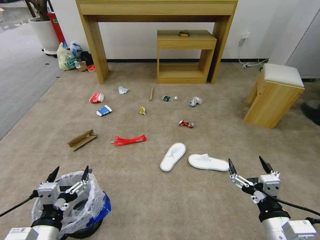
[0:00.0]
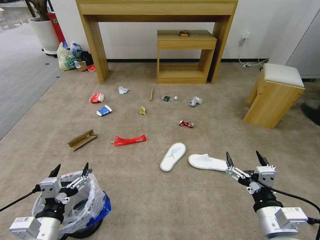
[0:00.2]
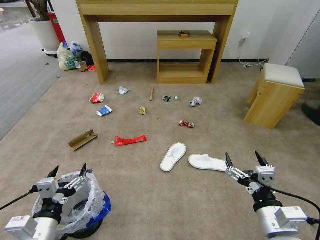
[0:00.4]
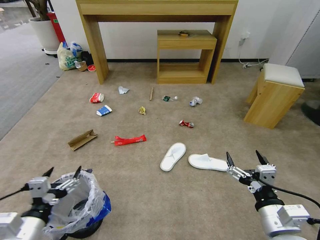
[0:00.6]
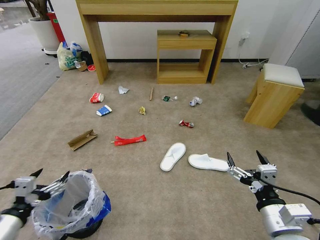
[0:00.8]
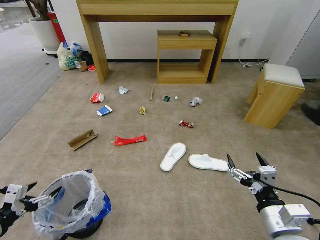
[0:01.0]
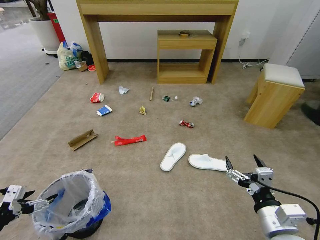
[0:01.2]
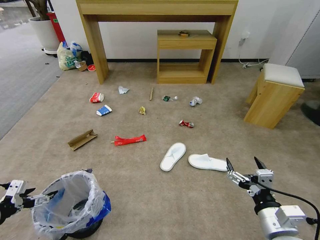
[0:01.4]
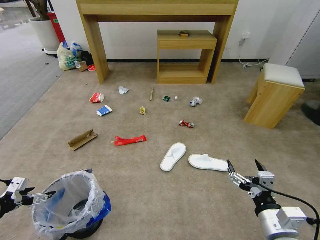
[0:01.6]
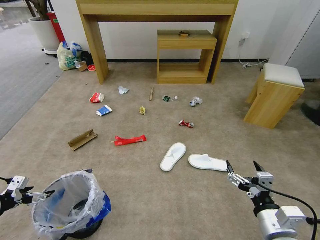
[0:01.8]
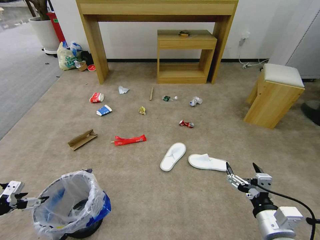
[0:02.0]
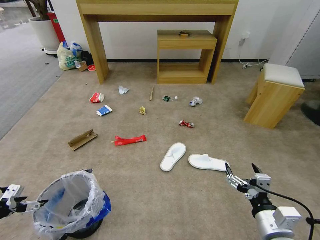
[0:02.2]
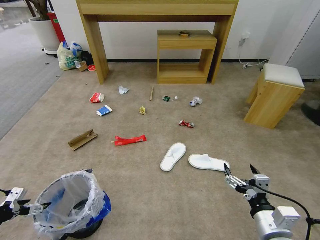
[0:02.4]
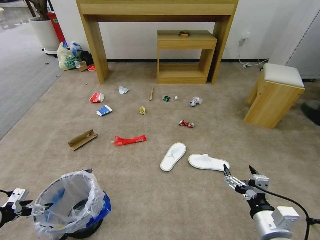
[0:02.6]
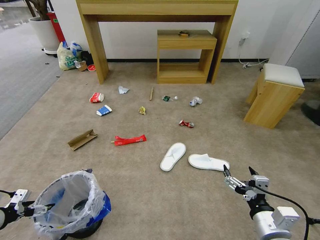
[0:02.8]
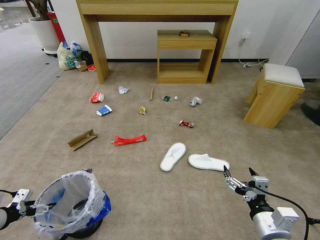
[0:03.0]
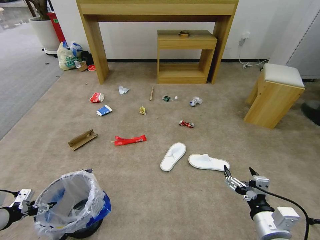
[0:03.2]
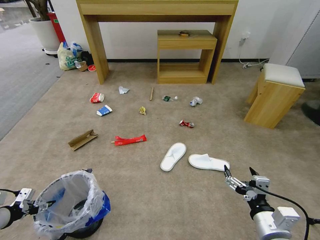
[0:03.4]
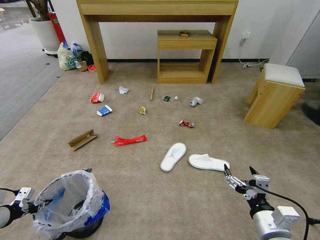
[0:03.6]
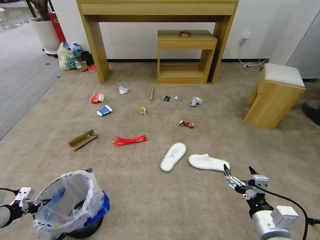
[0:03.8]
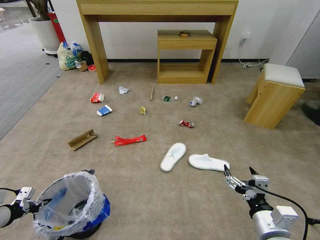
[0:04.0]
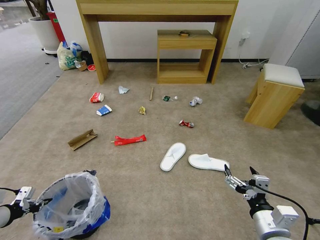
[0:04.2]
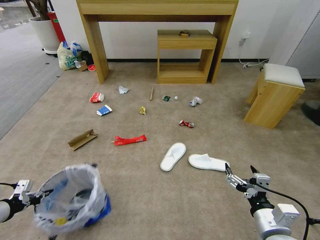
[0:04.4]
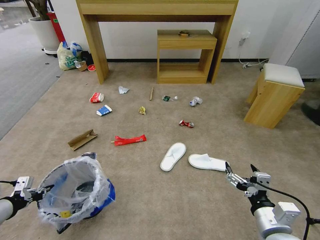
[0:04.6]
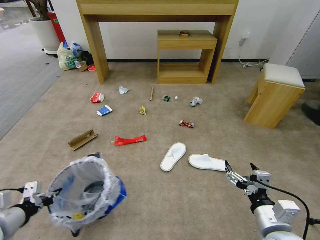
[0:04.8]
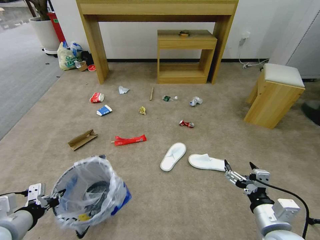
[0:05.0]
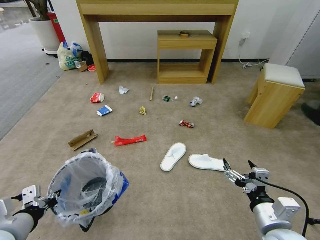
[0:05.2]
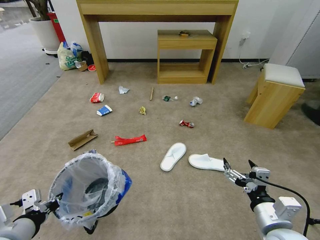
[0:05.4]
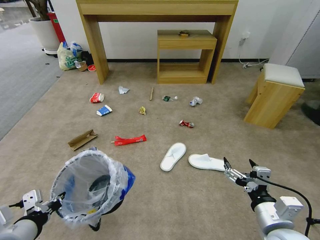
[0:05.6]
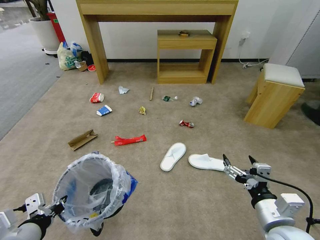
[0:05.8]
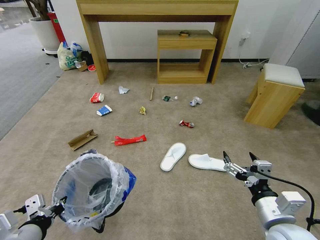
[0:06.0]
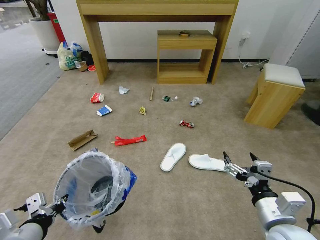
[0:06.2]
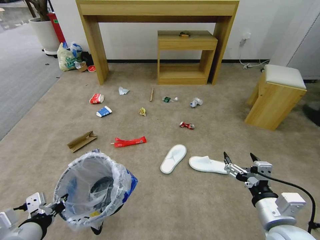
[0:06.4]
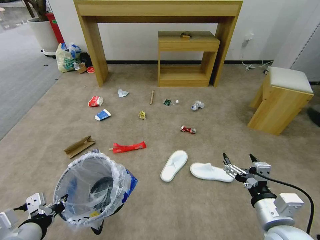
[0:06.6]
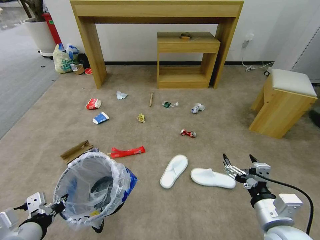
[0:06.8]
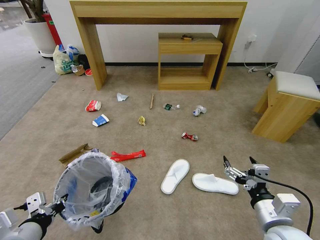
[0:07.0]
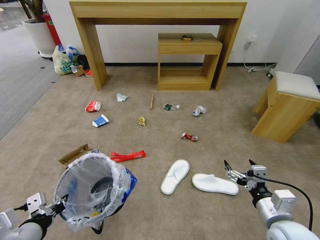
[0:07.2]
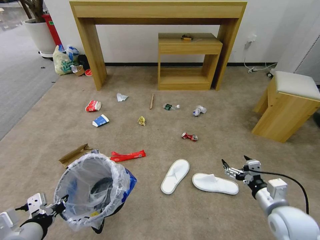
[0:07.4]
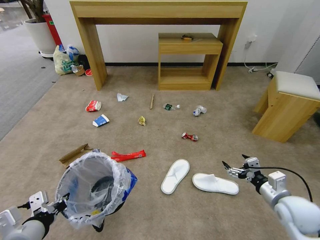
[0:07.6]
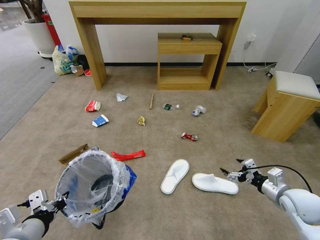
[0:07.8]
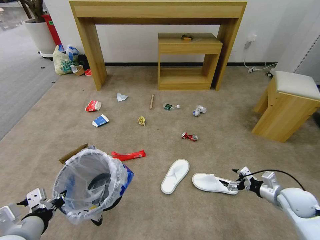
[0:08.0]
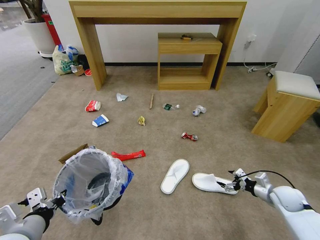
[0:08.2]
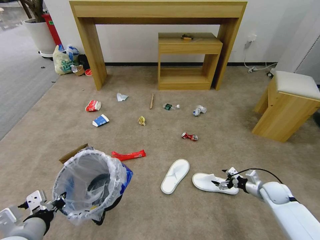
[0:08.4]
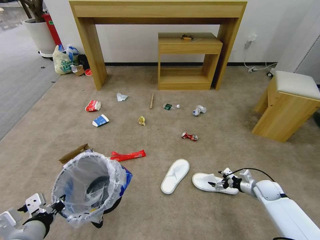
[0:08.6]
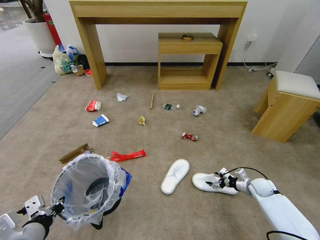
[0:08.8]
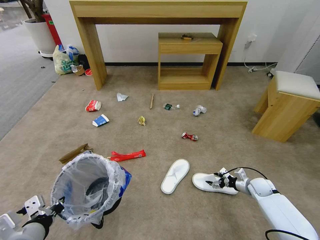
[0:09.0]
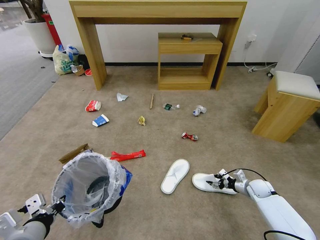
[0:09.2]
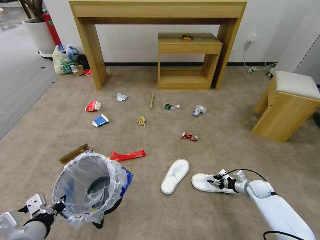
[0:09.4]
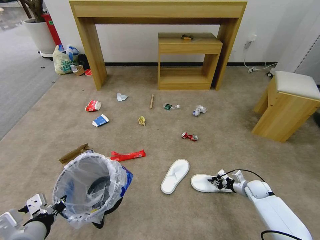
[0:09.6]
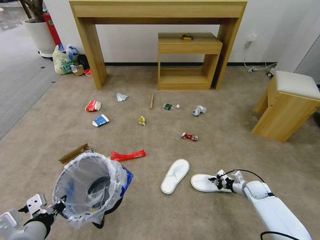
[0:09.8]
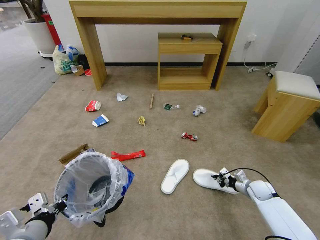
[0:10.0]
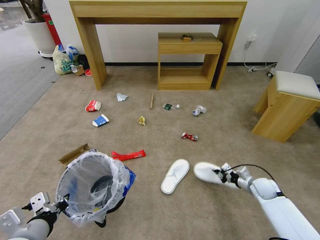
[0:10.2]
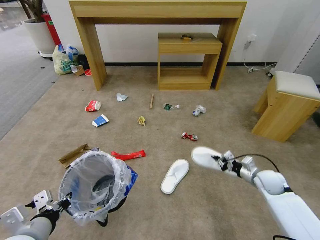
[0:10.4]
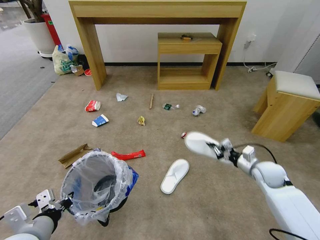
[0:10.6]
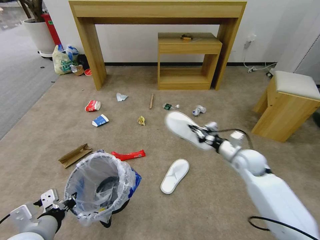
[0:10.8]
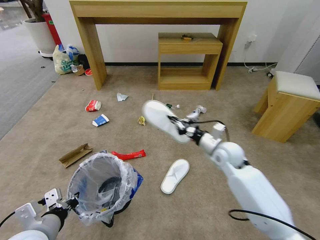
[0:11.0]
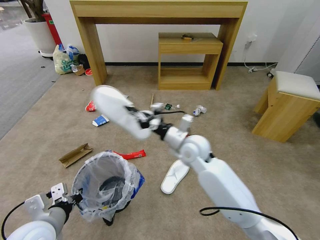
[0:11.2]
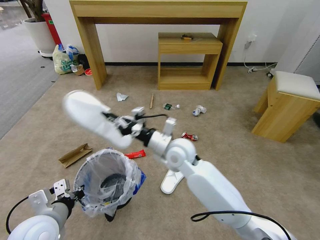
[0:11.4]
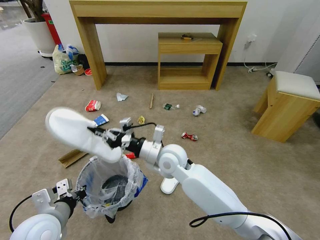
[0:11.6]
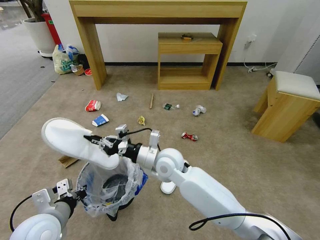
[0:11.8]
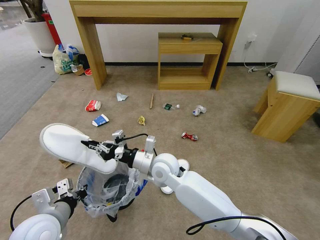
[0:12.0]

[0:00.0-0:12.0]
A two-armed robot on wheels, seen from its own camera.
Task of the whole recording: Pick up the trash bin and place the garbage on the floor into it.
0:01.6 to 0:03.0: The left gripper moves downward, about 5 cm.
0:03.0 to 0:04.4: The left gripper closes.
0:04.4 to 0:06.0: The left gripper heads to the right and backward, covering some 20 cm.
0:06.0 to 0:07.6: The right gripper moves to the right, forward and downward, approximately 15 cm.
0:07.6 to 0:09.0: The right gripper moves downward and forward, some 25 cm.
0:09.0 to 0:10.4: The right gripper is displaced upward by some 10 cm, and closes its fingers.
0:10.4 to 0:12.0: The left gripper shifts by about 5 cm; the right gripper travels to the left by approximately 40 cm.

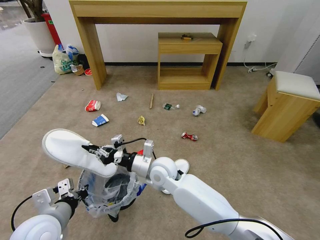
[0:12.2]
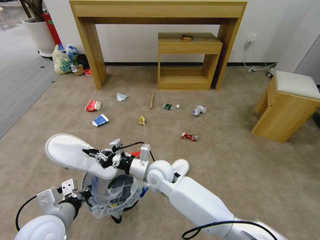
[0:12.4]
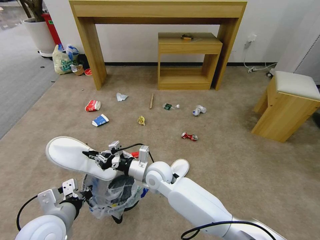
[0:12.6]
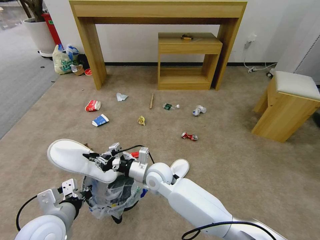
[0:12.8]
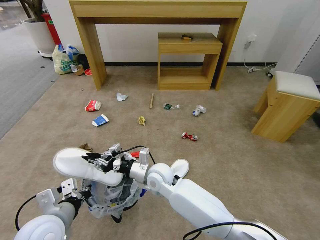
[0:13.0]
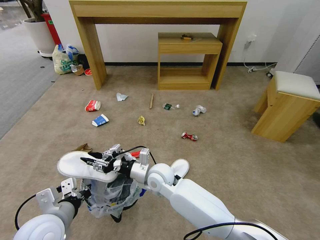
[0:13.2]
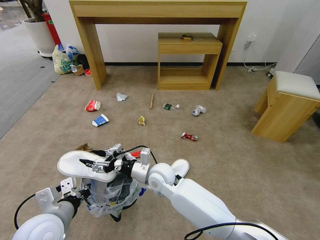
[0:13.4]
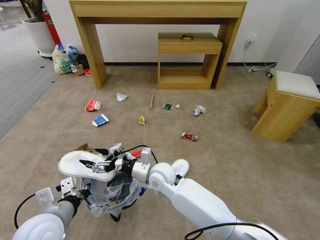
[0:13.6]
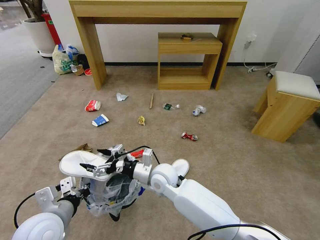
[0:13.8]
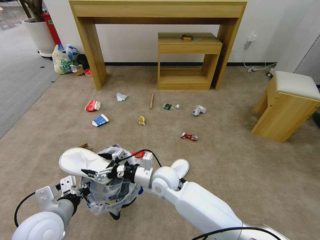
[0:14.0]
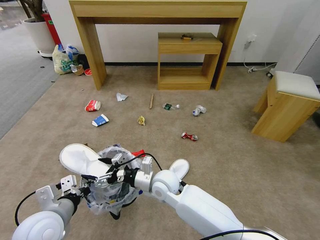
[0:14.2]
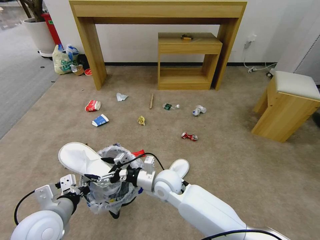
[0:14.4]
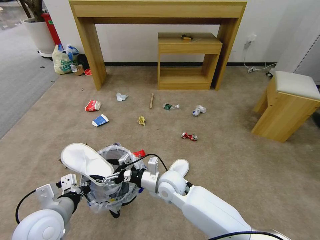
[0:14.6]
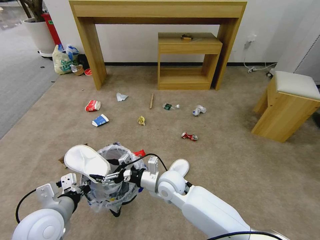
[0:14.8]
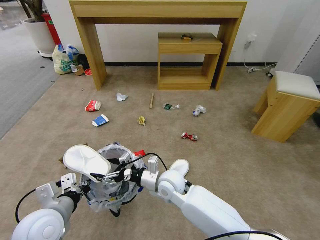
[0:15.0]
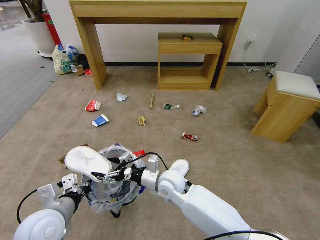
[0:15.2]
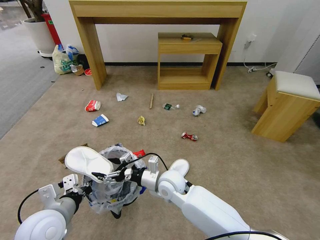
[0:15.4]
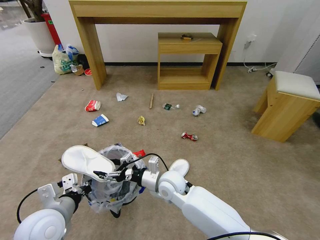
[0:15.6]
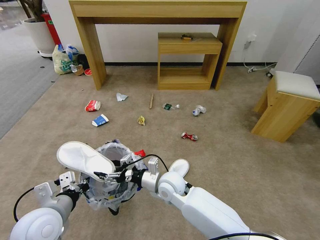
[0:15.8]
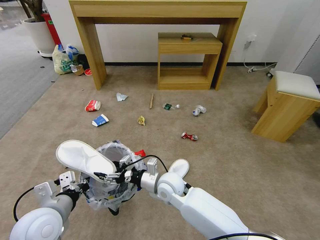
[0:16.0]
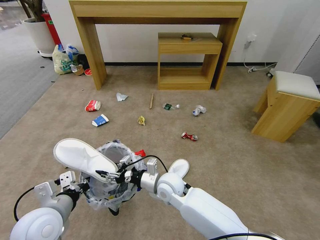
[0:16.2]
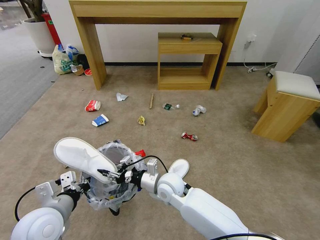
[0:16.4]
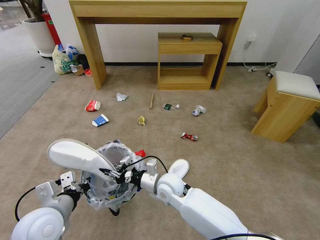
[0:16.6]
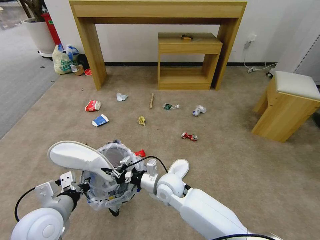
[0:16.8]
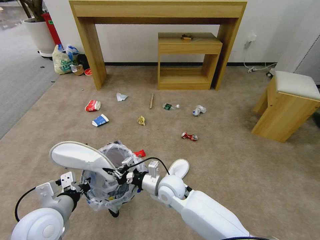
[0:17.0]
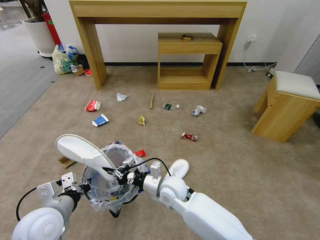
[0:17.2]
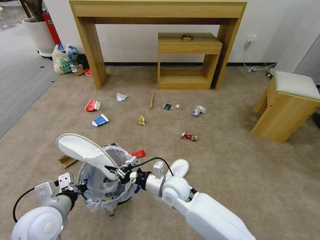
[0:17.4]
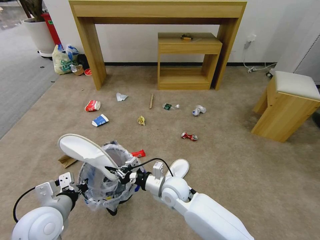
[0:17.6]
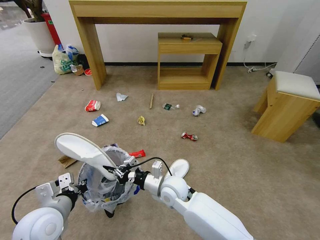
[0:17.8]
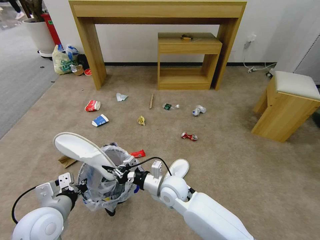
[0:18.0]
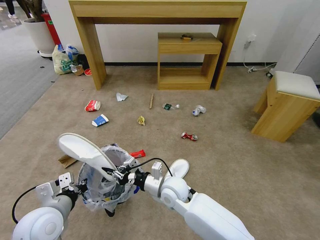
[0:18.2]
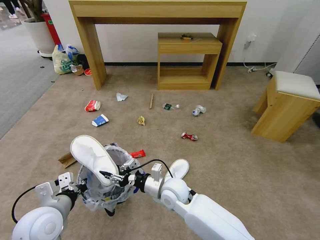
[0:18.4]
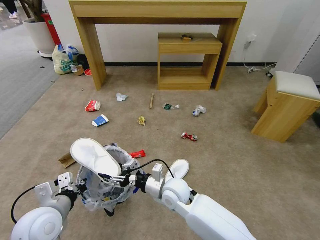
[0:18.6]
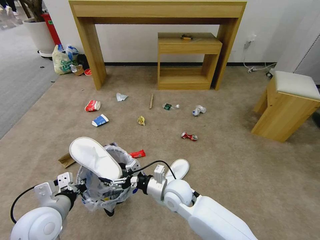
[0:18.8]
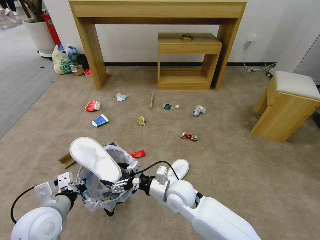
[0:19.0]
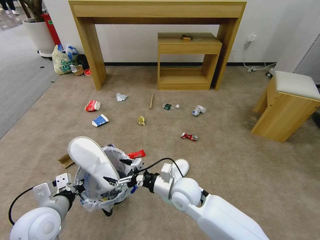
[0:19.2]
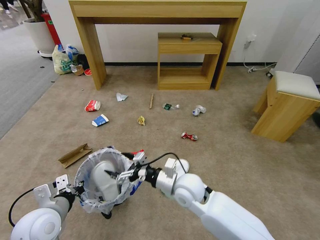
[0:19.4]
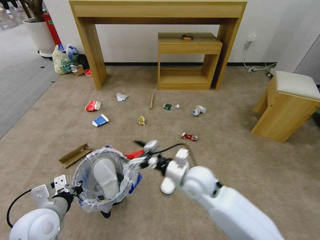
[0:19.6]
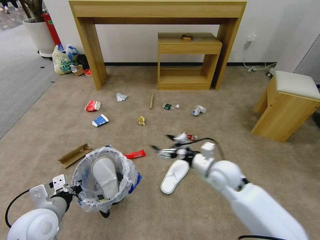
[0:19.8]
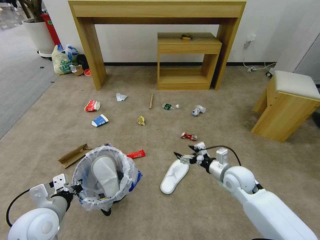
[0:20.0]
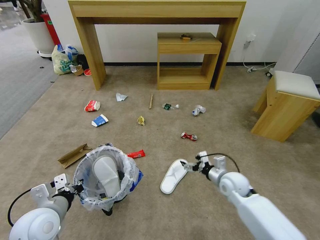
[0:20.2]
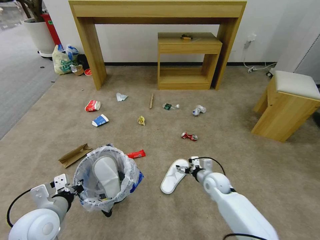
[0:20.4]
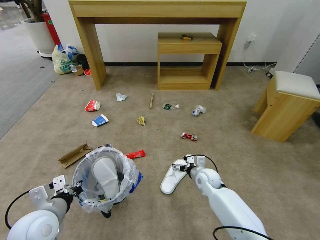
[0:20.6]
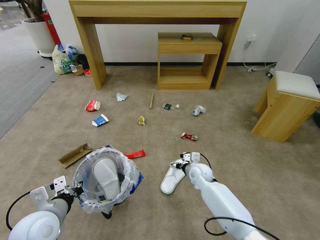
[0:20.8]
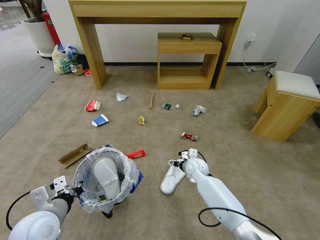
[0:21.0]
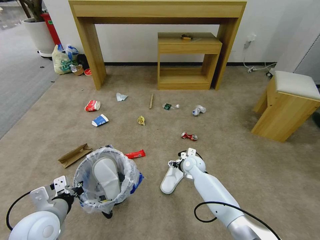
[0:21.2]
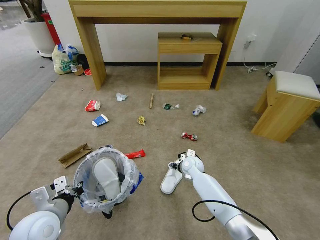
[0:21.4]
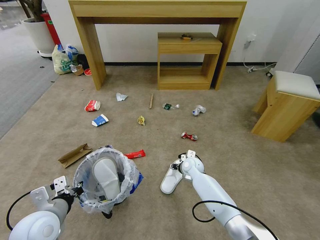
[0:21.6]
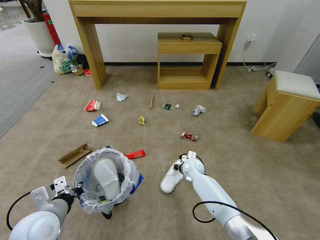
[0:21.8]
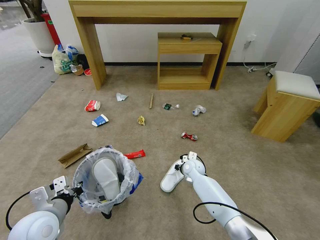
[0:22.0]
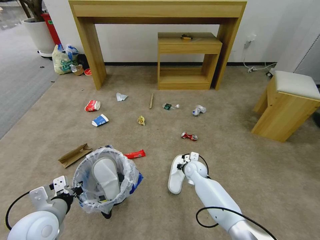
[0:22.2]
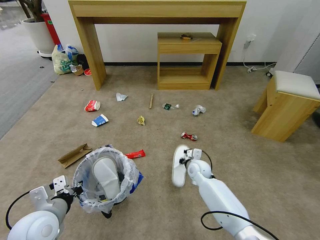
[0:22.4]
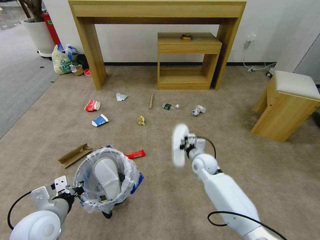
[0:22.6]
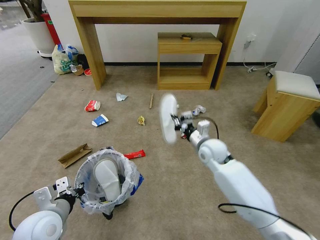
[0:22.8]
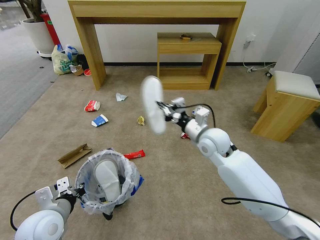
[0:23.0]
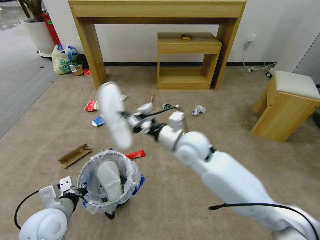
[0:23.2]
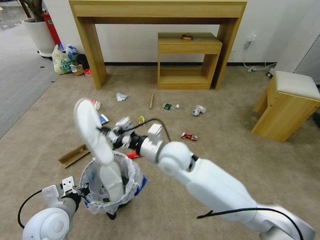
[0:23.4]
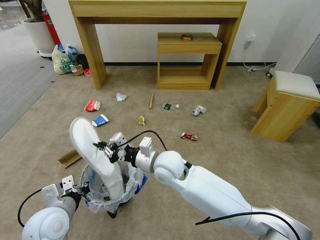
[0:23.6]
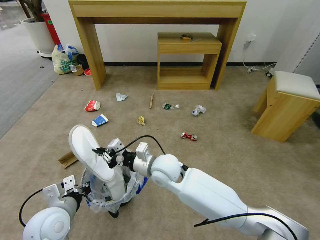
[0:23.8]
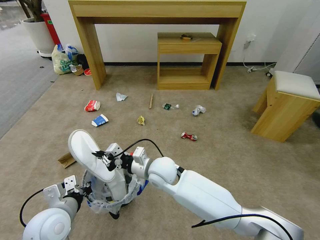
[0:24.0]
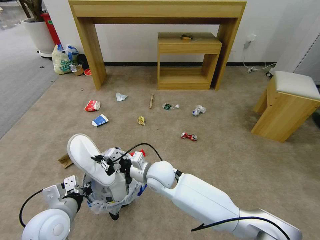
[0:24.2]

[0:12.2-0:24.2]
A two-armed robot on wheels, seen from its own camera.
Task of the whole recording: Pick up the trash bin and place the garbage on the floor into it.
0:12.2 to 0:13.8: The right gripper opens up.
0:13.8 to 0:15.2: The grippers stay close to where they were, moving slightly.
0:15.2 to 0:16.6: The right gripper closes its fingers.
0:16.6 to 0:18.2: The grippers make only small movements.
0:18.2 to 0:19.8: The right gripper is displaced to the right by roughly 15 cm, and opens.
0:19.8 to 0:21.2: The right gripper is displaced downward, forward and to the left by about 20 cm.
0:21.2 to 0:22.6: The right gripper moves upward, some 5 cm, and closes.
0:22.6 to 0:24.2: The right gripper travels to the left and backward by about 20 cm.
